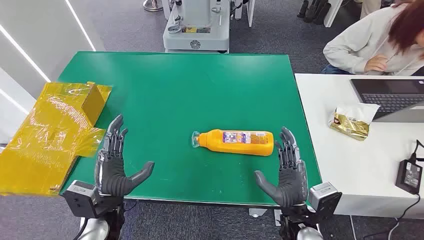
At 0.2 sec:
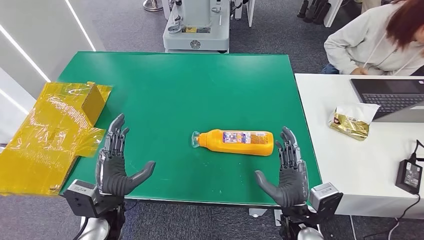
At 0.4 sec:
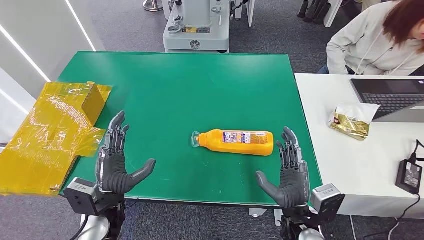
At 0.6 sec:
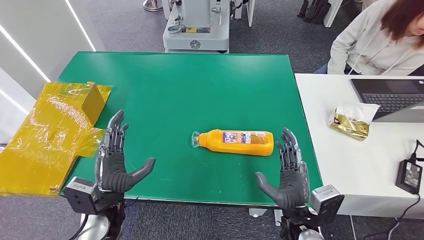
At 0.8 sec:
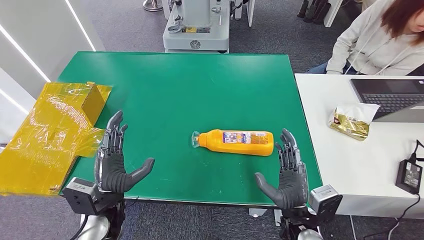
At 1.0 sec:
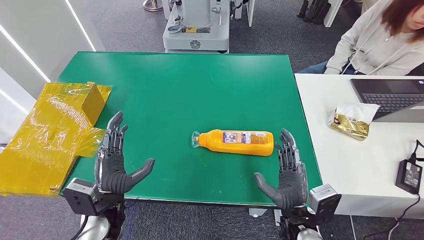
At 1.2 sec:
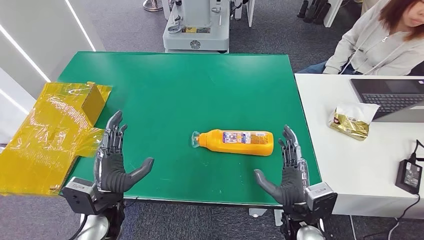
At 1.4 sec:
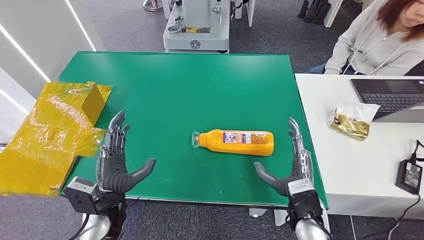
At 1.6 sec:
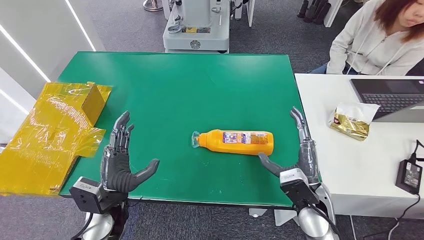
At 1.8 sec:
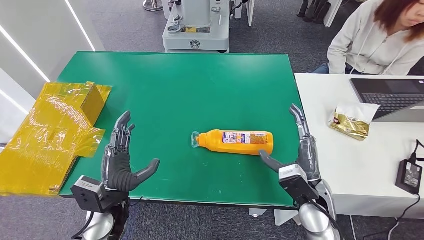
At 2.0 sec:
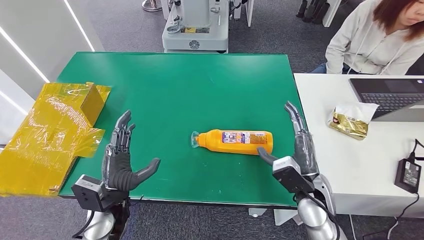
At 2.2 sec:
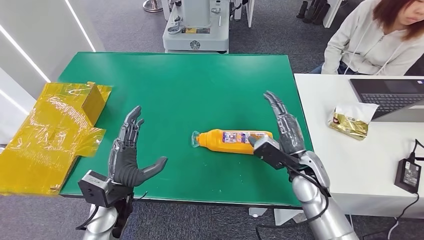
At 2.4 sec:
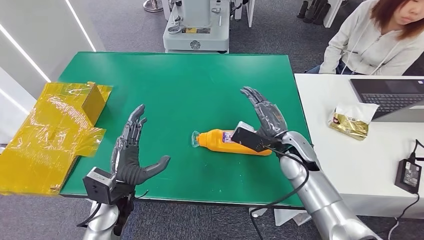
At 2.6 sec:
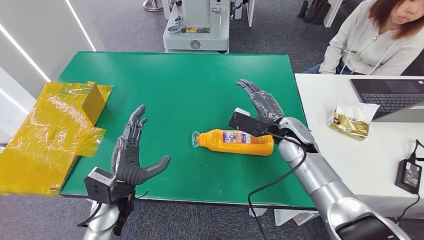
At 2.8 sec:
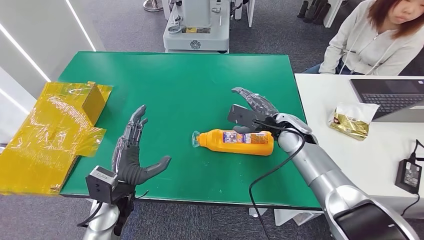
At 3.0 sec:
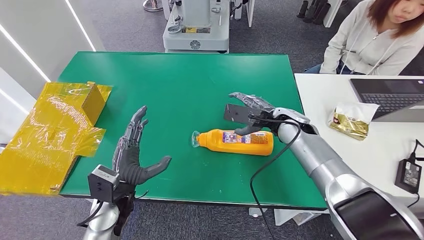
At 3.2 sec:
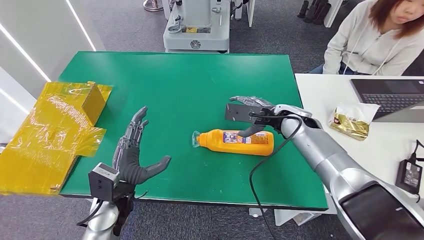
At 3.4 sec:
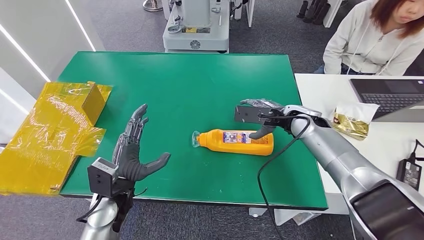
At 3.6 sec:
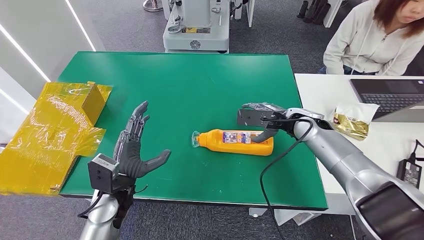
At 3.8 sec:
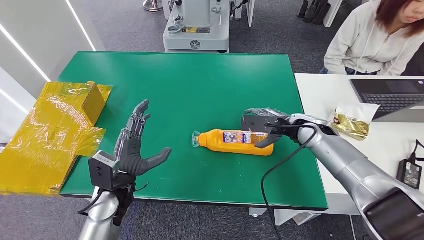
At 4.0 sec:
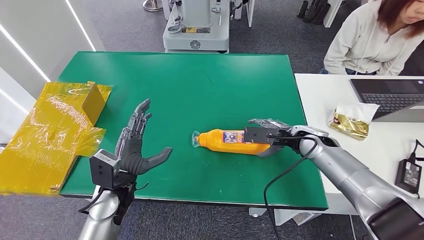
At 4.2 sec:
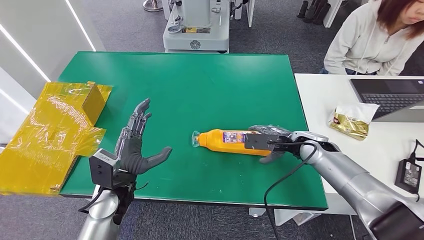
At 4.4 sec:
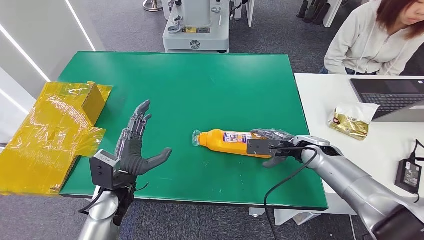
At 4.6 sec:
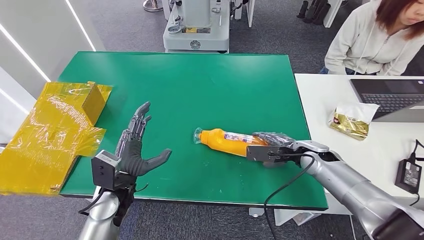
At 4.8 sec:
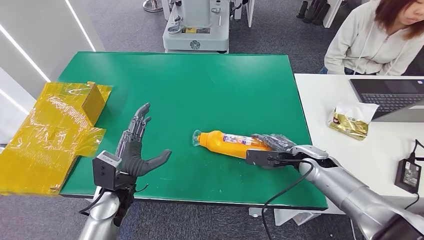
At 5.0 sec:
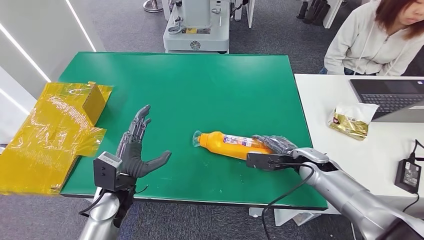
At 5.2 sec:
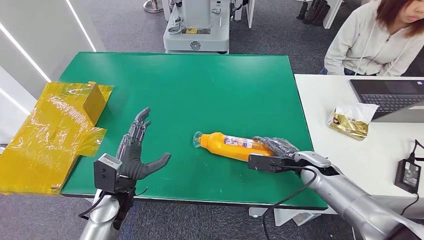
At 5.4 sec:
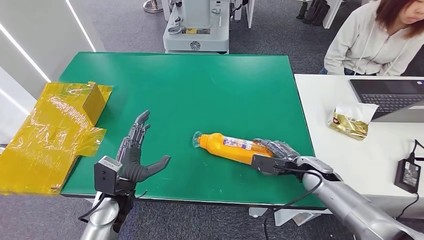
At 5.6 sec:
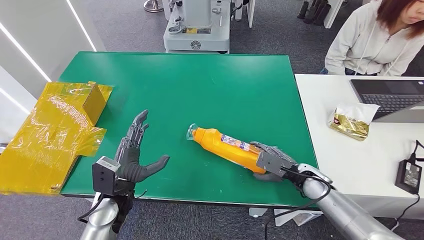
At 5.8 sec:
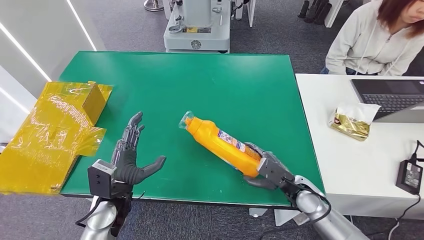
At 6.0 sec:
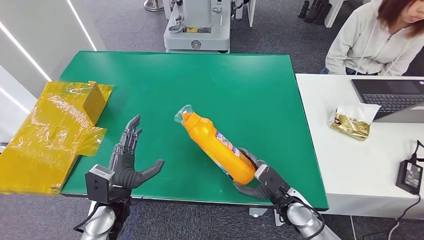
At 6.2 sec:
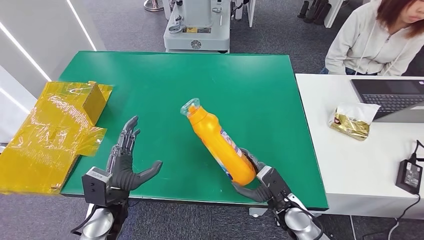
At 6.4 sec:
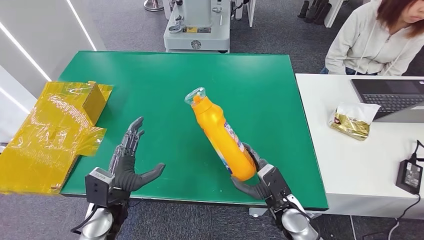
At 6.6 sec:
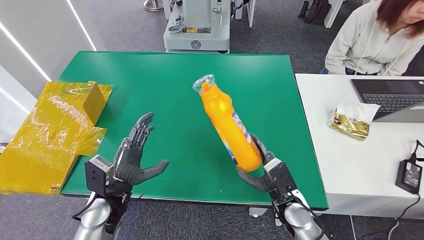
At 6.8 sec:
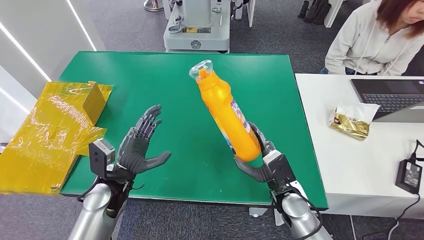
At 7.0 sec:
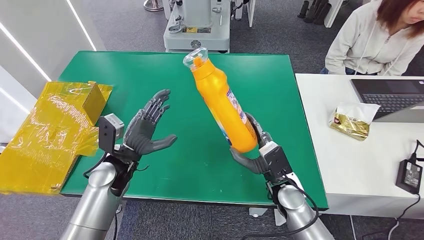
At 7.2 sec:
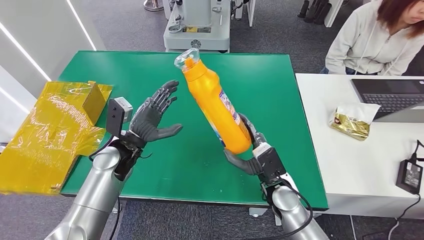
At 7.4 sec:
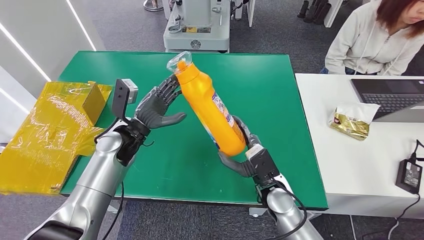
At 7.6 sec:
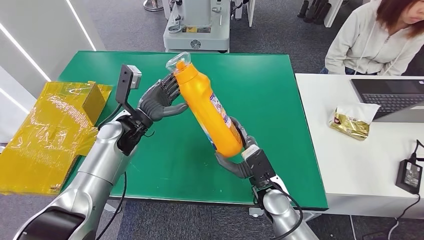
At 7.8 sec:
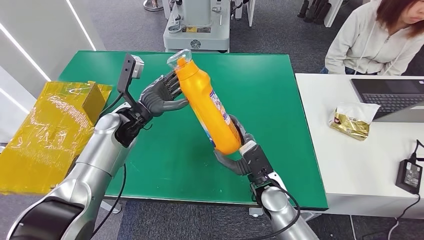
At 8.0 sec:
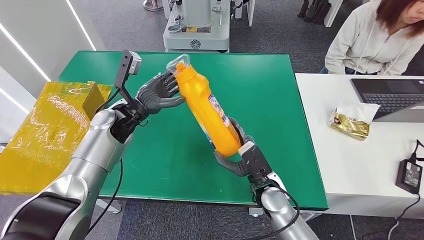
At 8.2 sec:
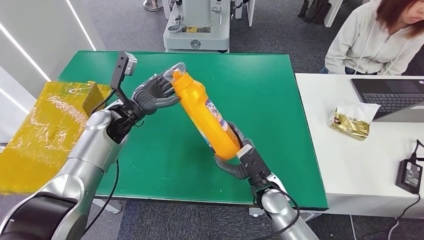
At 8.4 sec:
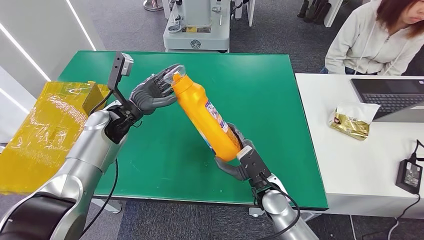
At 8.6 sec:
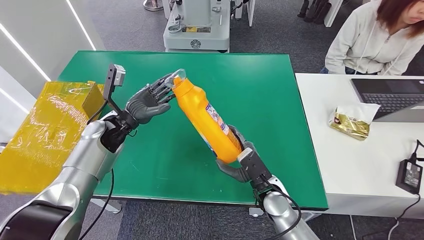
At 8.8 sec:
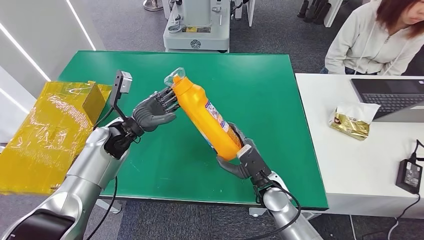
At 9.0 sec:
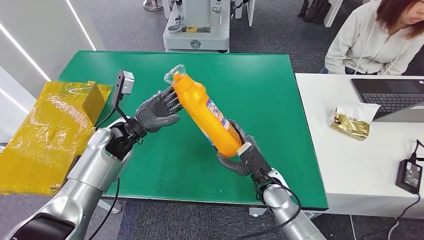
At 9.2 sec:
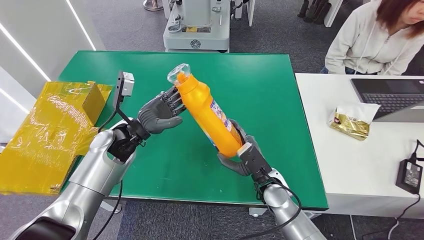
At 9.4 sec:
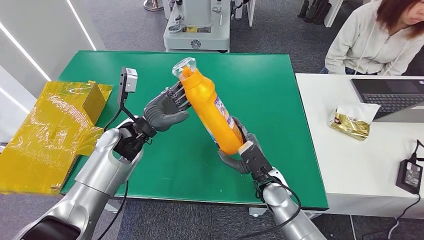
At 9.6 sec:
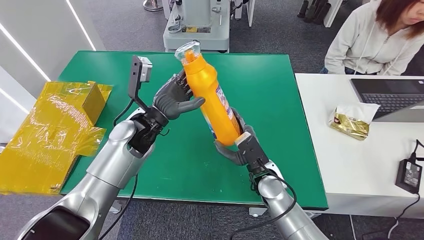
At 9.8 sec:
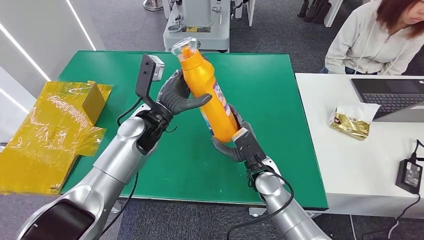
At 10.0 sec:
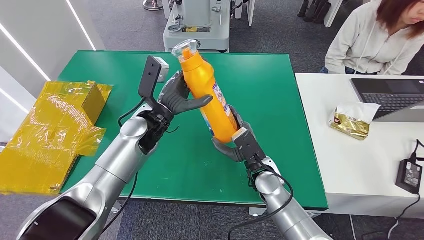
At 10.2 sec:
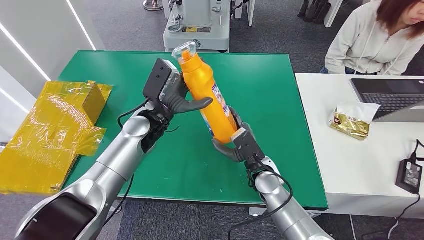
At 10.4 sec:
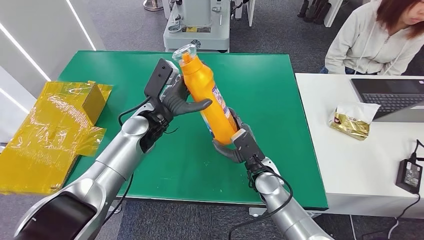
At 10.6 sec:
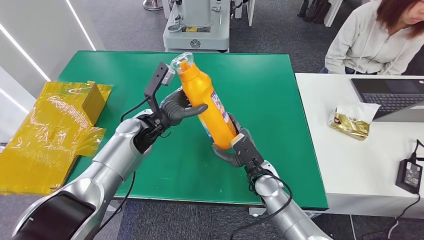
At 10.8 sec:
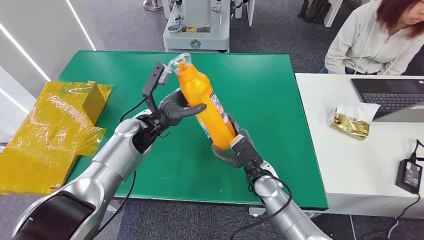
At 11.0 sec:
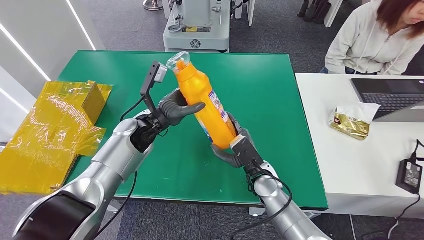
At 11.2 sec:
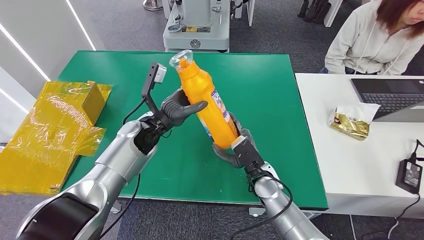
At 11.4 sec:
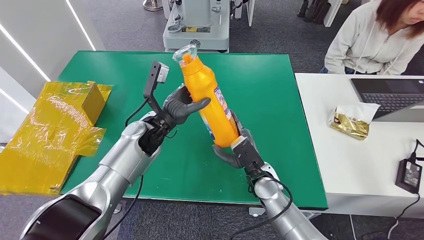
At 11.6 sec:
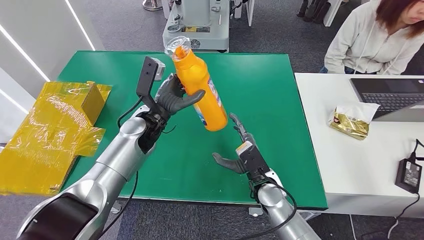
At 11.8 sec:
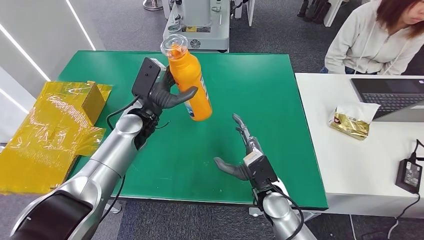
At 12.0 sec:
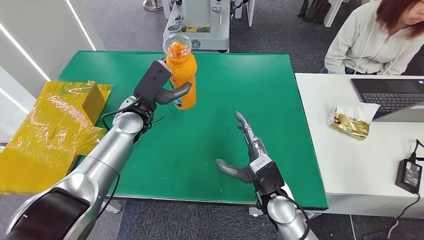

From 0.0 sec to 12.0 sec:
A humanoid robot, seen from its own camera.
Step, from 0.0 sec to 7.8 sec: Pick up the bottle from the table.
From 1.6 sec to 3.0 sec: The right hand is displaced forward and upward by some 20 cm.
From 3.0 sec to 4.4 sec: The right hand goes roughly 10 cm to the right and downward.
From 4.4 sec to 6.0 sec: The right hand goes approximately 20 cm backward, downward and to the left.
From 6.0 sec to 7.6 sec: The right hand goes about 10 cm to the left and upward; the left hand moves forward and upward, roughly 20 cm.
From 7.6 sec to 9.0 sec: The hands stay close to where they were, moving slightly.
From 9.0 sec to 10.4 sec: The left hand shifts roughly 5 cm to the right.
From 10.4 sec to 12.0 sec: The right hand travels backward by some 5 cm.

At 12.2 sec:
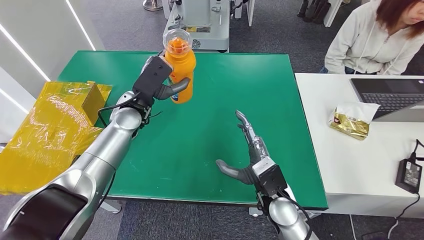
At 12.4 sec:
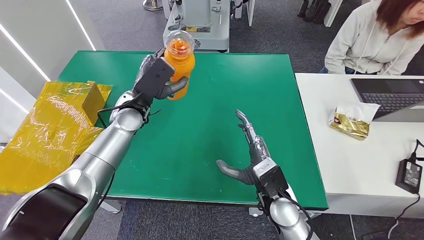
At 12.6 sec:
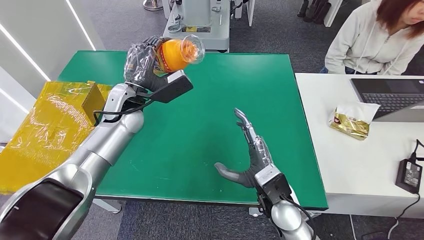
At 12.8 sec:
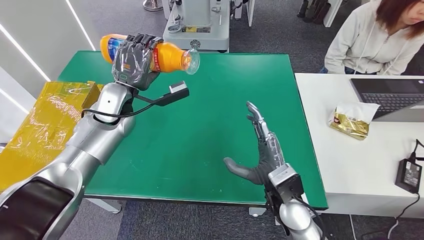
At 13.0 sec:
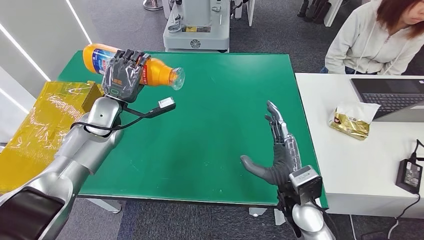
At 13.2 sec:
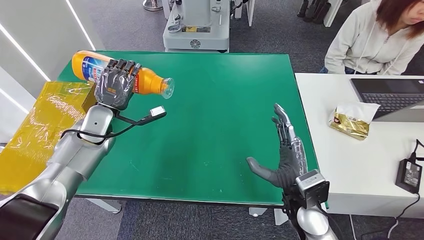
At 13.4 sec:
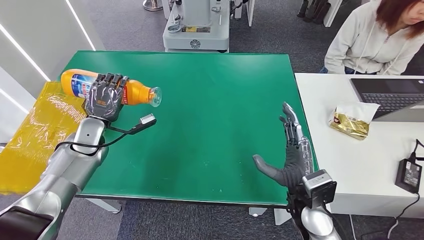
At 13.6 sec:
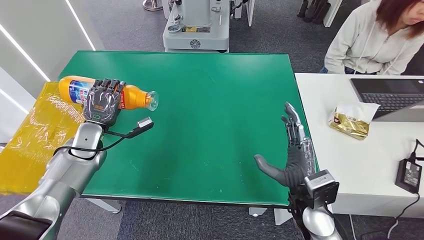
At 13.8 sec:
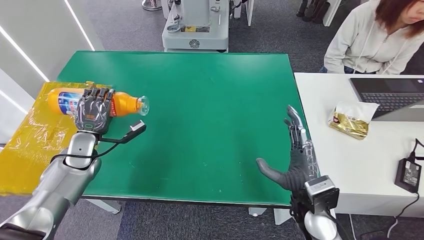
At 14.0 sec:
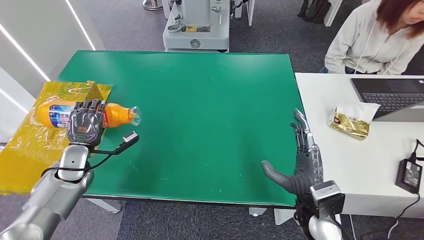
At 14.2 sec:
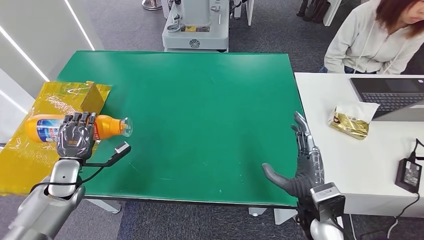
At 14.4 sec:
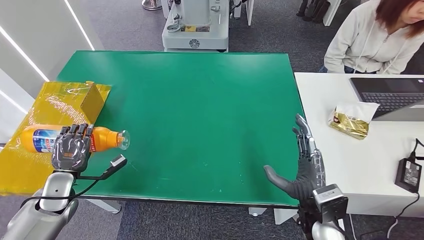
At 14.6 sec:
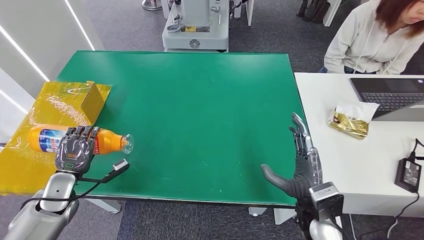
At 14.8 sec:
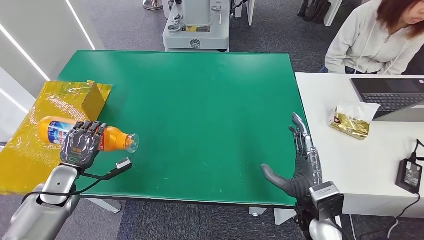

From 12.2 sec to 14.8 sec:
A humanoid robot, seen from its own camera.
Step, from 12.2 sec to 14.8 sec: Turn the bottle to the front side.
From 12.2 sec to 13.4 sec: The left hand heads to the left and downward, covering approximately 15 cm, while the right hand travels to the right by some 5 cm.
From 13.4 sec to 14.8 sec: The left hand shifts roughly 15 cm backward, to the left and downward.
